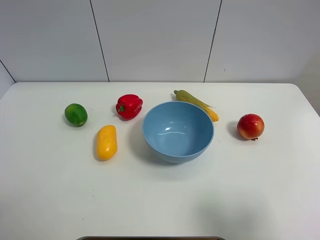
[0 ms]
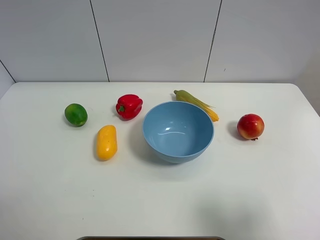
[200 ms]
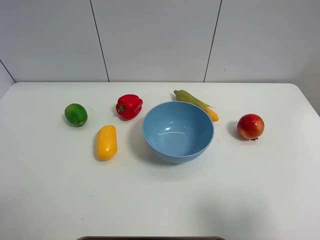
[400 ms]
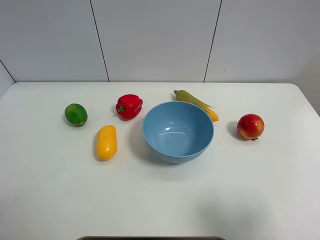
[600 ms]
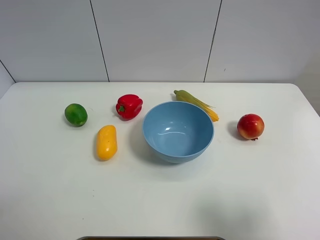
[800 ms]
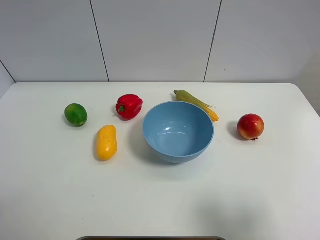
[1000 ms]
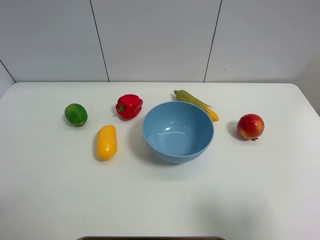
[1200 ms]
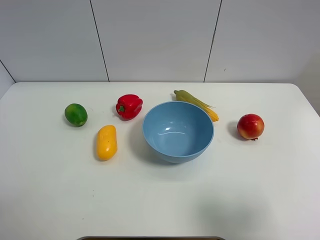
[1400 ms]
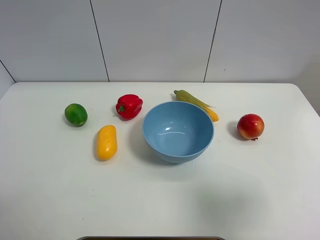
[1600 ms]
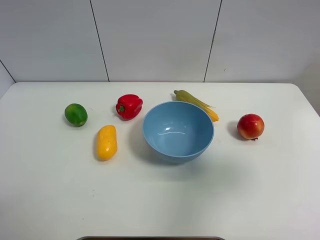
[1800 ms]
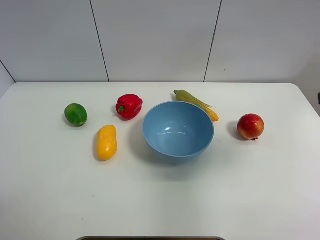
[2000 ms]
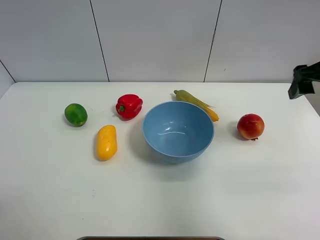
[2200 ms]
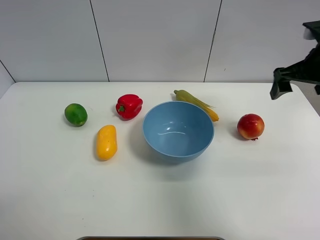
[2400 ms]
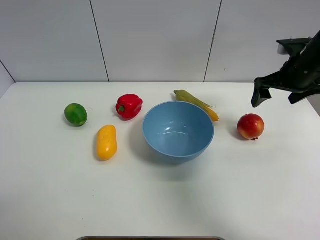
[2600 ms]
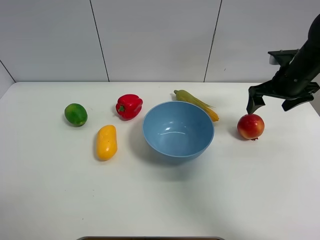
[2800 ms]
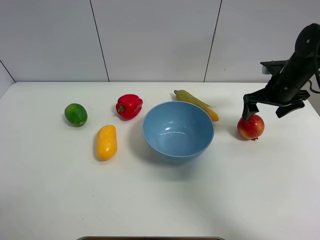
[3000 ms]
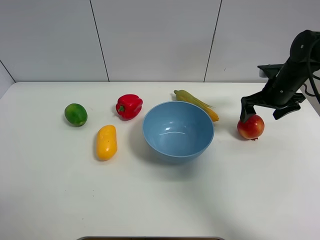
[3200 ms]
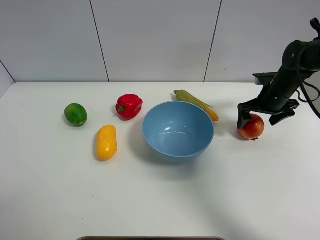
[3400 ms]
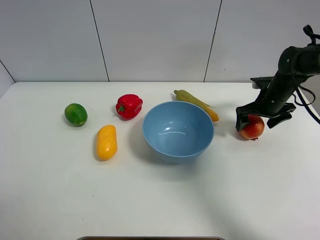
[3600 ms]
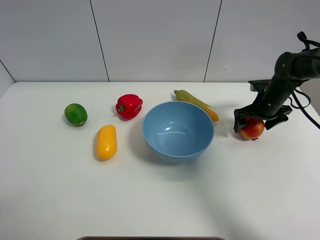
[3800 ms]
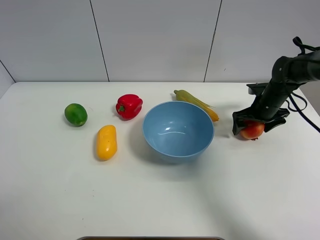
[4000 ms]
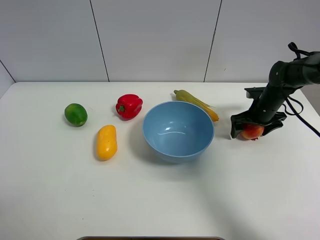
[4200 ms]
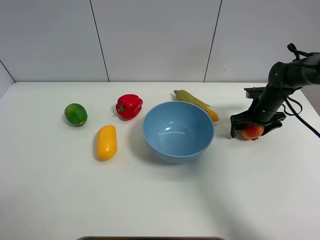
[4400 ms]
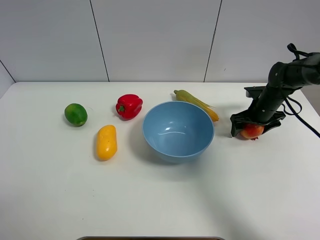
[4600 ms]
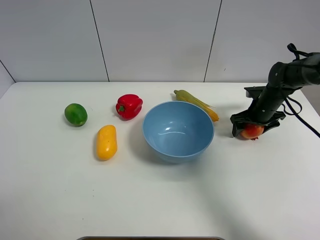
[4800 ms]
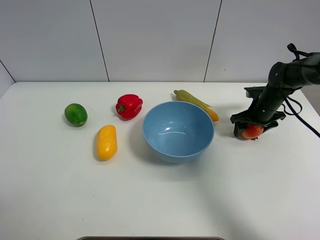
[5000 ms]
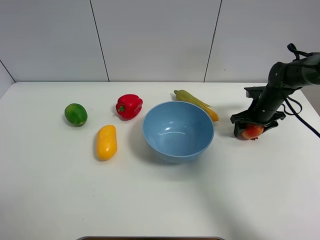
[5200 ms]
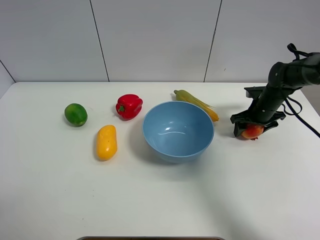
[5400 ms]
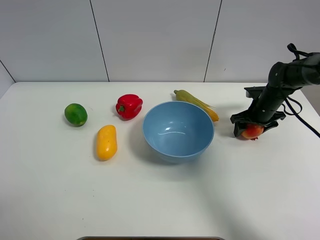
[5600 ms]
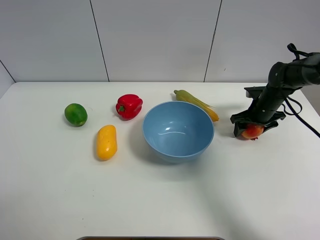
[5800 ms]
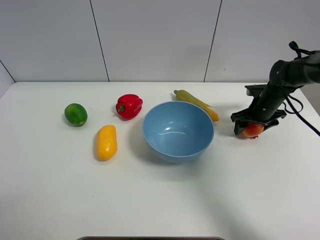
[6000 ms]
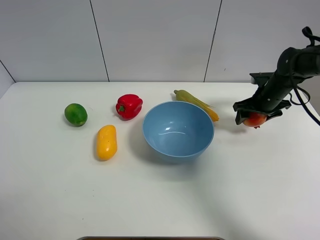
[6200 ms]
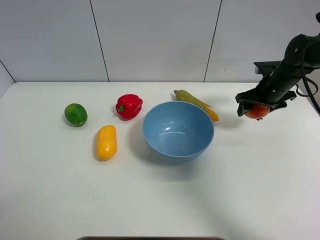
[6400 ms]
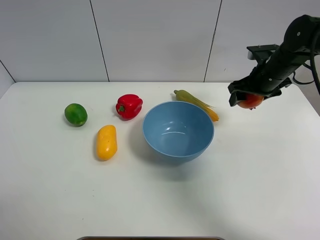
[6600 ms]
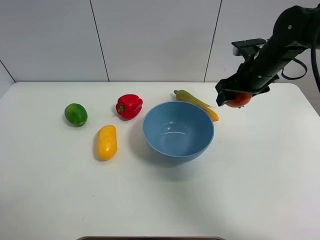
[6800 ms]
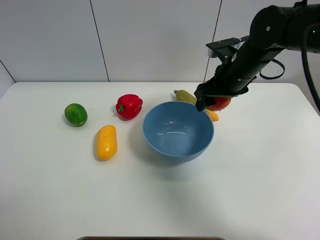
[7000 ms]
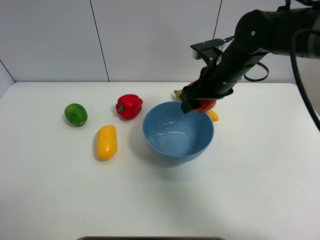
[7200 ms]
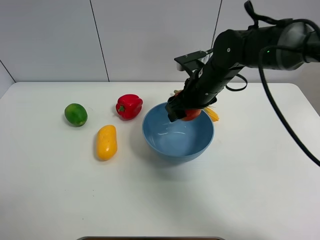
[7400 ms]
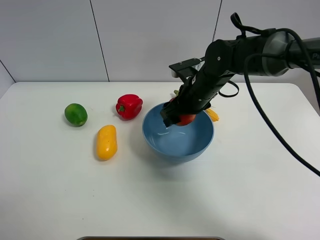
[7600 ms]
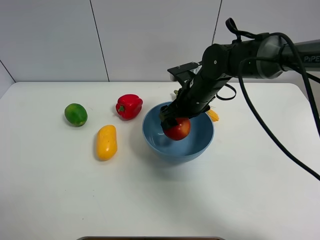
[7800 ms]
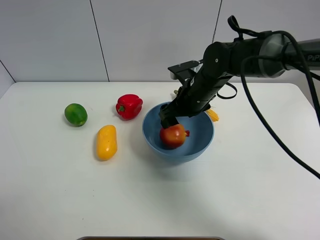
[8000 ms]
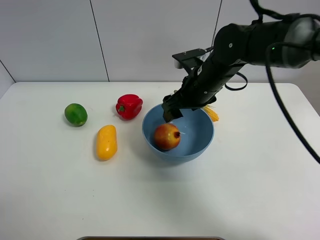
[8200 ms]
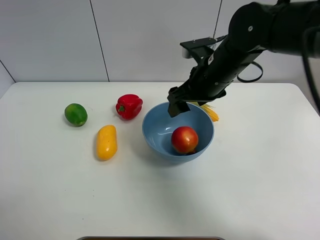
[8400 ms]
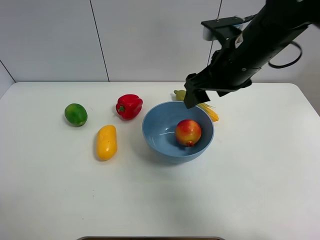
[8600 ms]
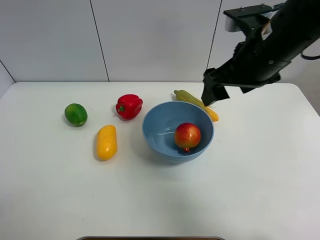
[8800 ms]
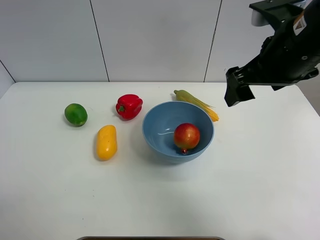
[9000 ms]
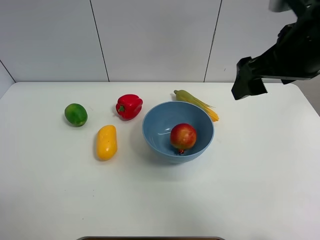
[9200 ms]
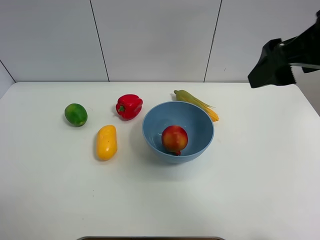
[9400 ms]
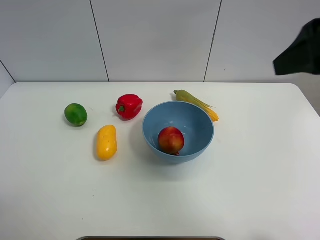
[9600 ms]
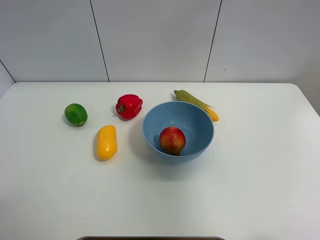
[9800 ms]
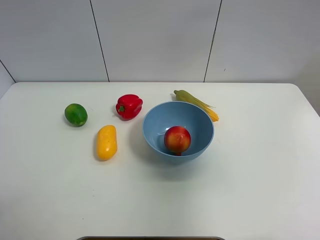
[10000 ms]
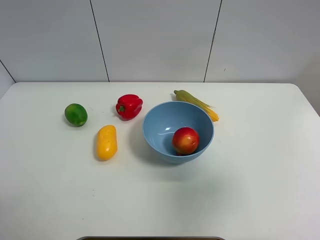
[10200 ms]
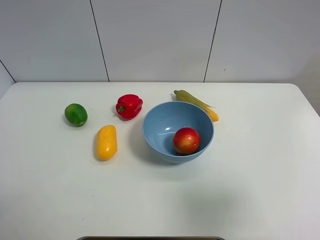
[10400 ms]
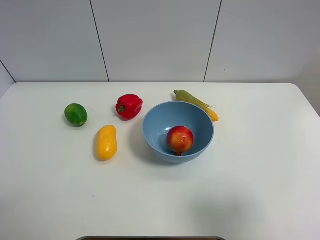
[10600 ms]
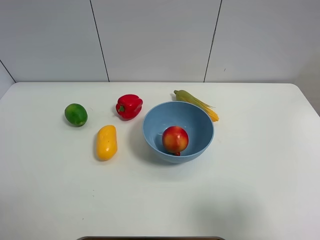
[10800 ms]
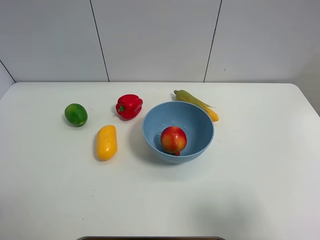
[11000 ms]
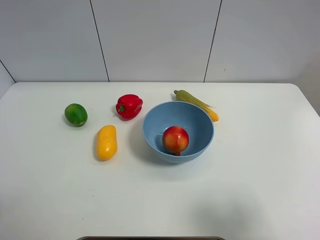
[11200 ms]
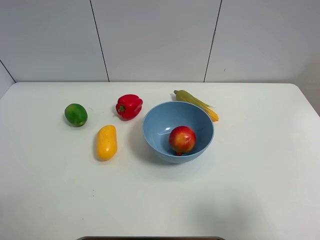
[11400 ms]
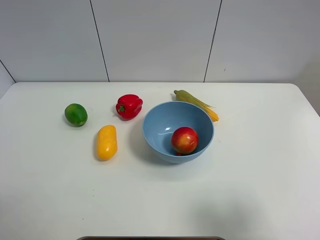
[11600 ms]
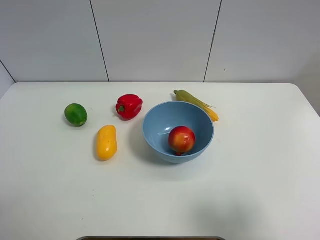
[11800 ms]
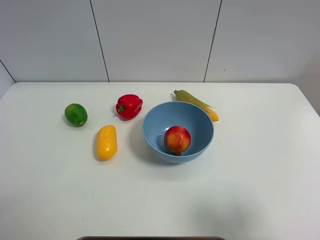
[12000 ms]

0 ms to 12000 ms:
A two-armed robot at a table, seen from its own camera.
Task of the whole recording: Put the three fruits on the table into a bowl.
Step, 0 ms to 4800 ms: Grasp the pomegranate with right gripper.
Step, 5000 ms to 8000 ms: Place the pomegranate in the blue bowl with right gripper.
0 ms to 1600 ms: The right gripper moves roughly 5 cm.
1600 ms to 3000 ms: The right gripper goes some 35 cm forward.
3000 ms to 4400 ms: The right gripper travels downward by approximately 10 cm.
4400 ms to 6000 ms: The right gripper closes up.
6000 ms to 7600 ms: The right gripper travels to the left and upward by some 20 cm.
7600 ms to 9000 ms: The right gripper is displaced upward, backward and to the right by approximately 20 cm, and opens up.
9000 ms to 10400 ms: The right gripper shifts some 25 cm backward and to the right.
10400 ms to 12000 ms: The right gripper shifts roughly 5 cm downward.

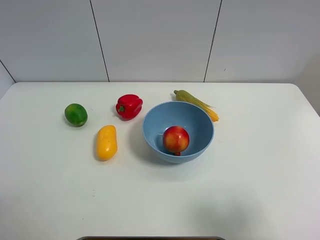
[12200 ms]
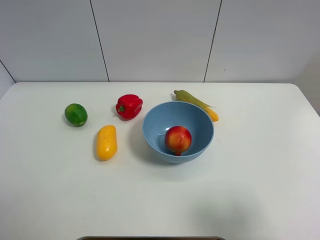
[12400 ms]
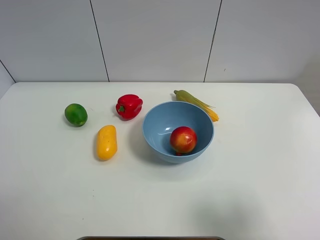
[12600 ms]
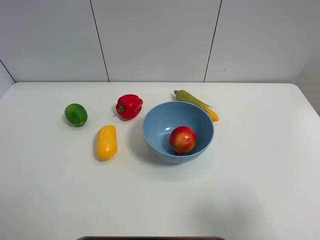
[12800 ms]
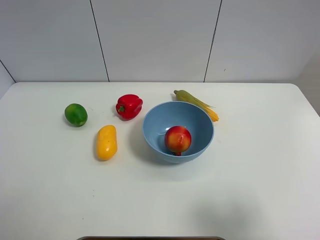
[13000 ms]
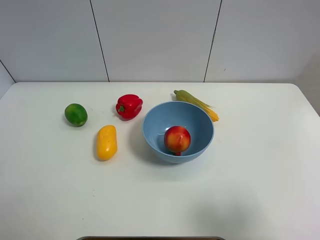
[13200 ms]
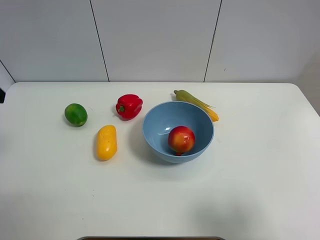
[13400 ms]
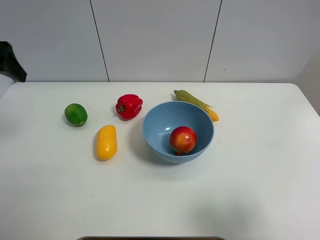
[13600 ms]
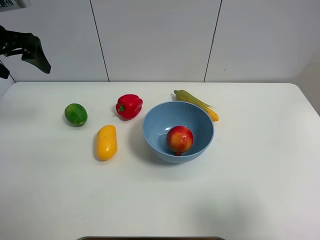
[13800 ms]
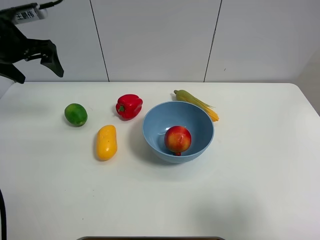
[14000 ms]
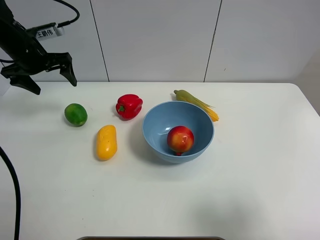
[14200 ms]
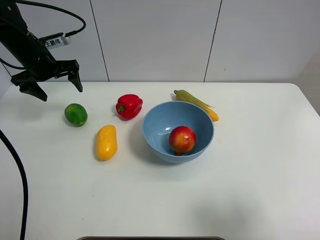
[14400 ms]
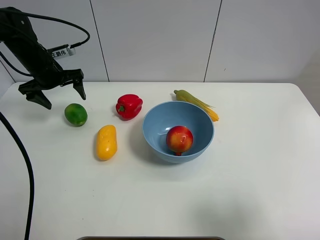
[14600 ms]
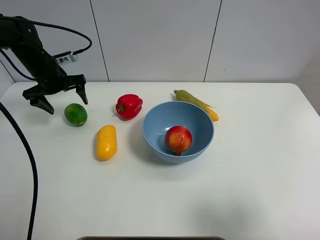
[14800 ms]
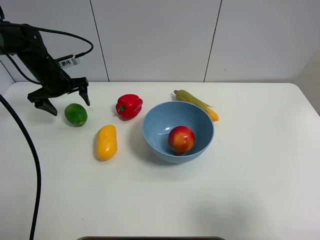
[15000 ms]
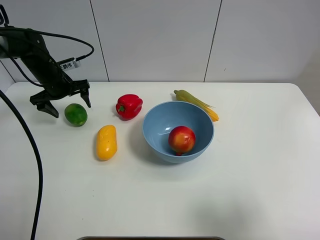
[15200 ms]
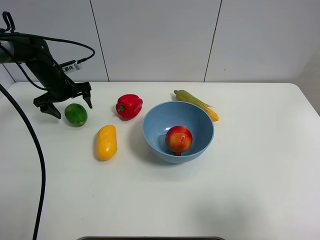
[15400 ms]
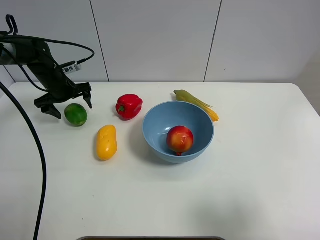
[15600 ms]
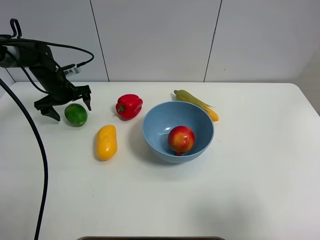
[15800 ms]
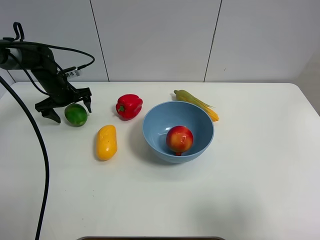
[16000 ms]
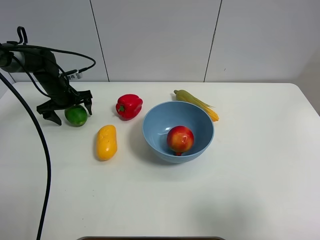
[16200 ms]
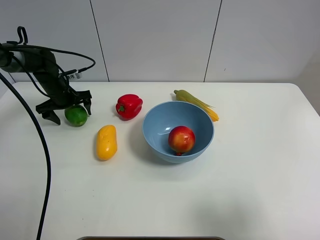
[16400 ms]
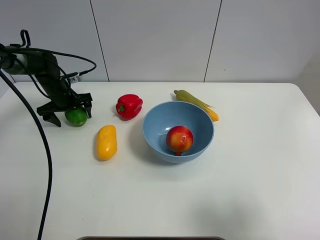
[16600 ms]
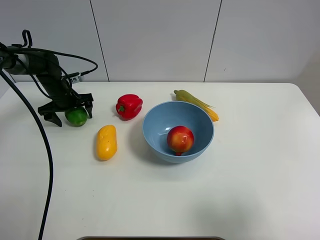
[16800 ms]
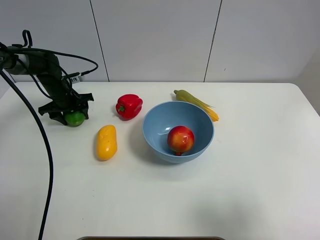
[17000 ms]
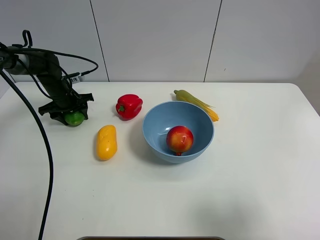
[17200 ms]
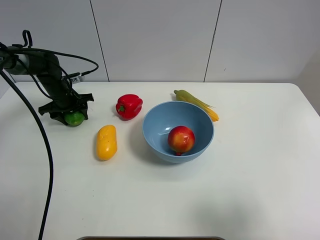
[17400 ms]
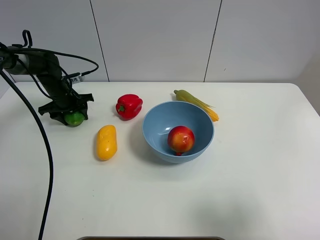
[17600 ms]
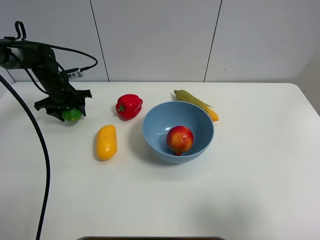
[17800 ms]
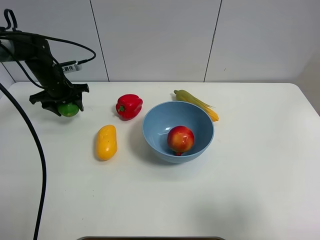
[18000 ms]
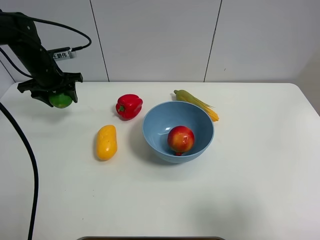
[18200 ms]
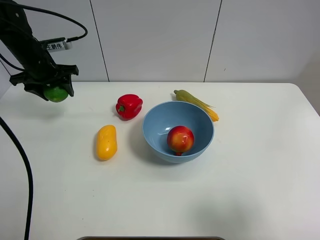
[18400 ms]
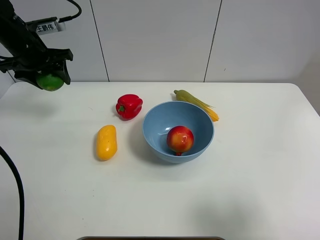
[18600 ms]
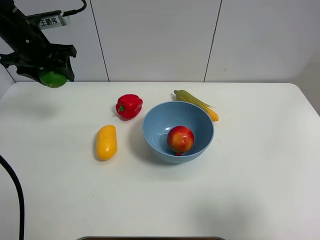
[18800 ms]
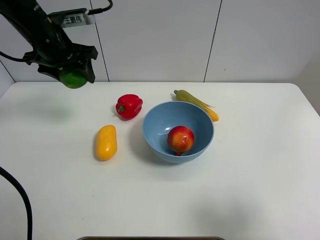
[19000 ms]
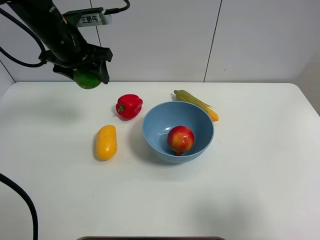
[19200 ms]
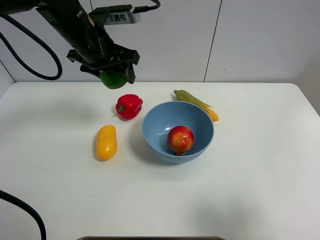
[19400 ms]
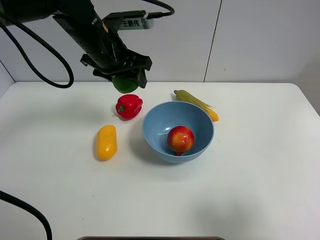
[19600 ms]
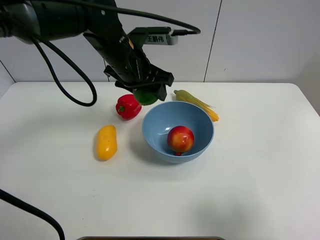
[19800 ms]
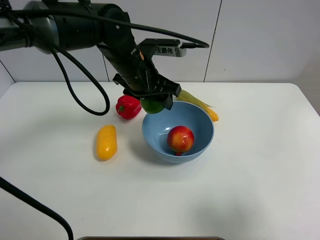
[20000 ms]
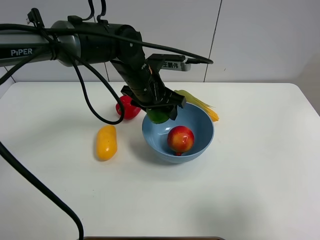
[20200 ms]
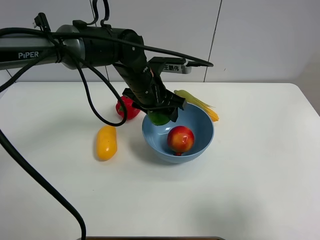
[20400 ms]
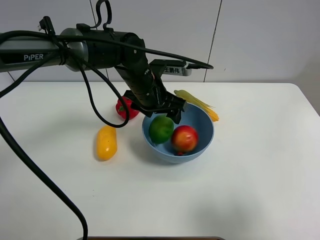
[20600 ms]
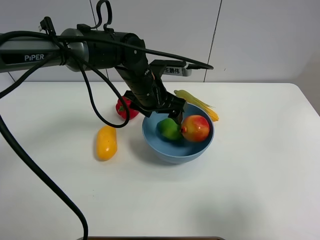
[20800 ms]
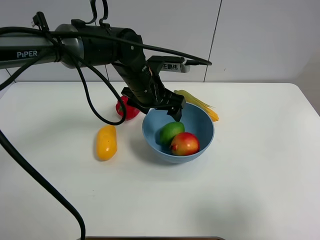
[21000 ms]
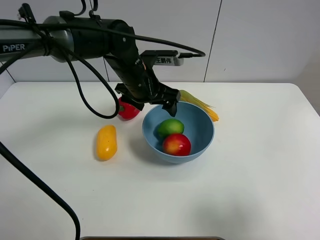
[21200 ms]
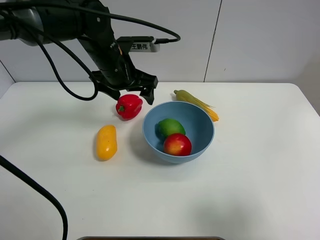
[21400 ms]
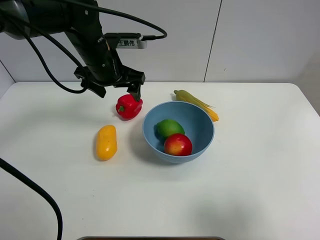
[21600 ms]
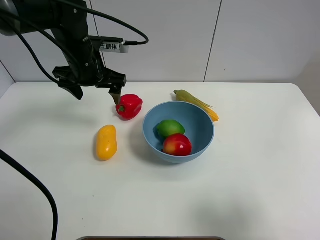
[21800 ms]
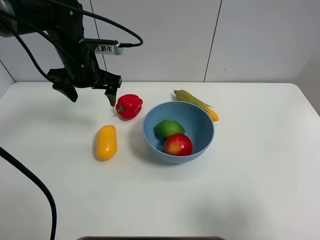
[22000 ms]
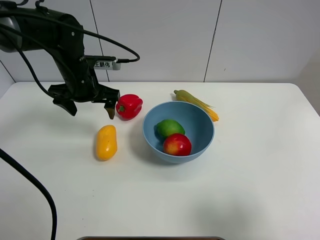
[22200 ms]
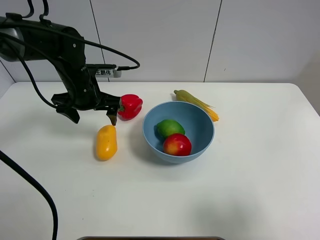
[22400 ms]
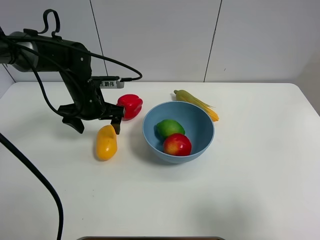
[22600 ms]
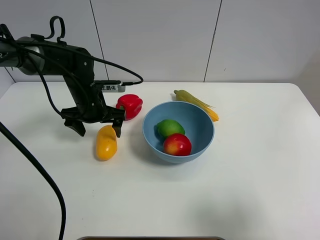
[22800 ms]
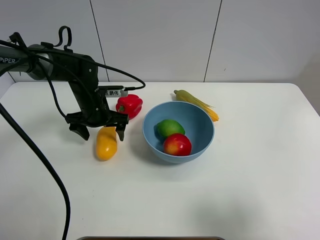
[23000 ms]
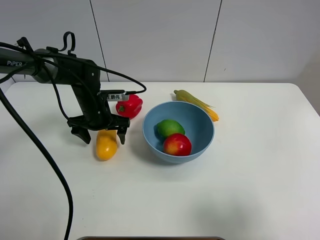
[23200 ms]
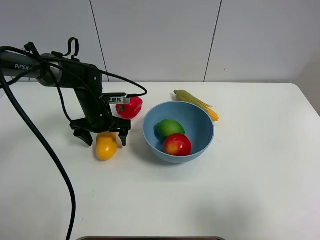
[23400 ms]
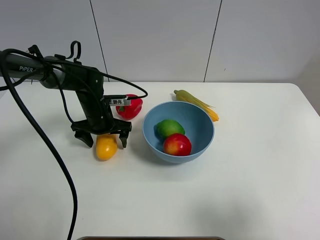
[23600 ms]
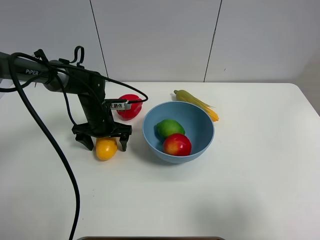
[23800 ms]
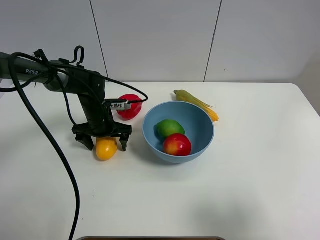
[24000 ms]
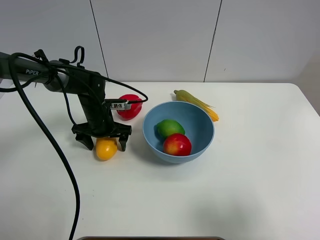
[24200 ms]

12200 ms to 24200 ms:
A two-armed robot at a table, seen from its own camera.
Task of the whole recording: Put the three fruits on the table into a bowl.
Step, 12200 ms to 17200 ms: Grasp the green lemon with left gripper.
Step, 17400 ms to 20600 ms: Place the green lemon in the blue bowl with left gripper.
12200 ms to 13800 ms: The left gripper moves forward, about 35 cm.
13800 ms to 15200 ms: The left gripper travels downward and forward by about 20 cm.
15200 ms to 16600 ms: The left gripper is displaced downward by roughly 5 cm.
16600 ms to 18200 ms: The left gripper goes some 10 cm upward, and closes its fingers.
18200 ms to 19800 ms: The left gripper shifts approximately 25 cm to the right and backward.
19800 ms to 21200 ms: The left gripper opens up.
21200 ms to 22600 ms: The left gripper travels to the left and downward by approximately 15 cm.
22600 ms to 24200 ms: The left gripper is displaced downward by roughly 10 cm.
